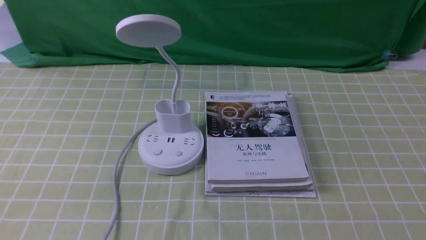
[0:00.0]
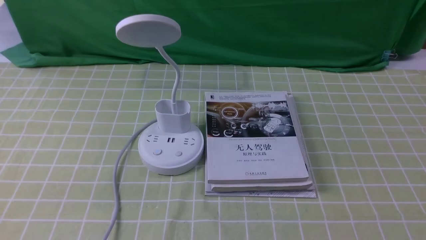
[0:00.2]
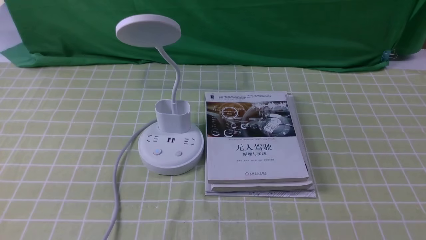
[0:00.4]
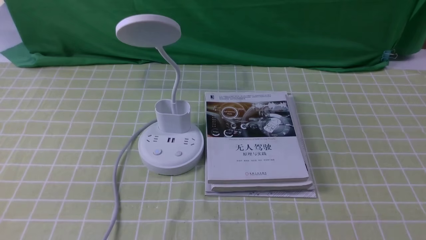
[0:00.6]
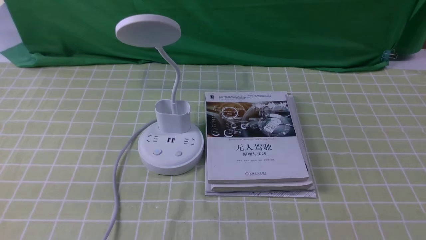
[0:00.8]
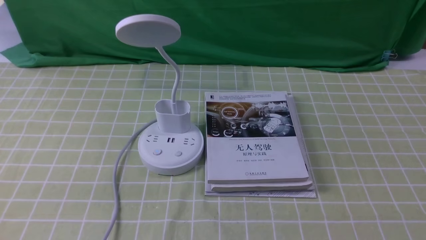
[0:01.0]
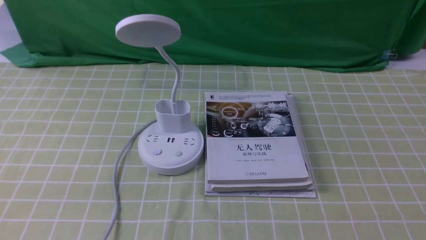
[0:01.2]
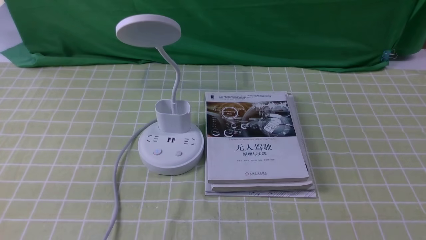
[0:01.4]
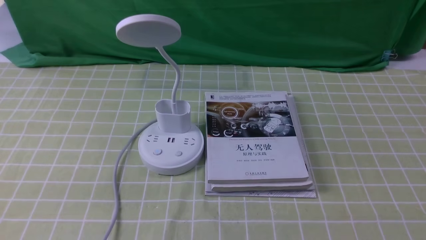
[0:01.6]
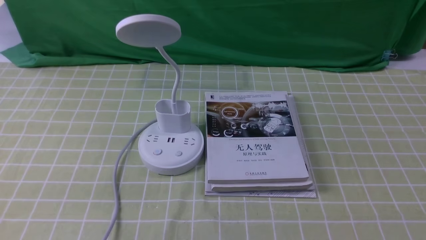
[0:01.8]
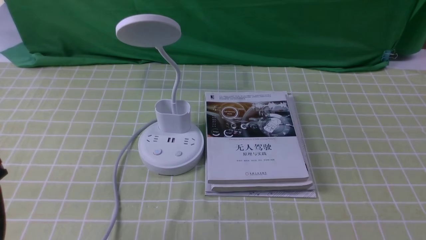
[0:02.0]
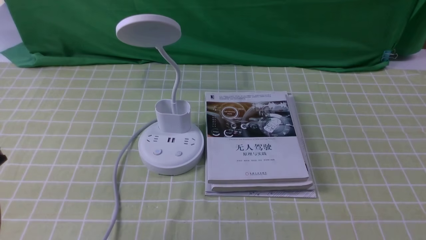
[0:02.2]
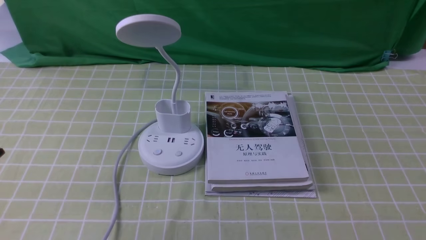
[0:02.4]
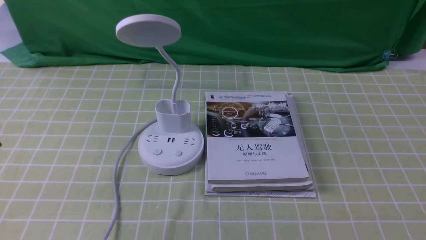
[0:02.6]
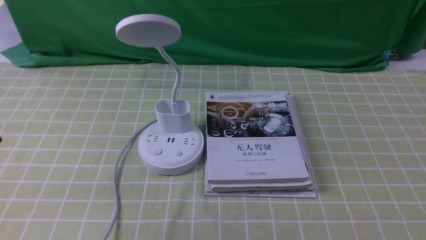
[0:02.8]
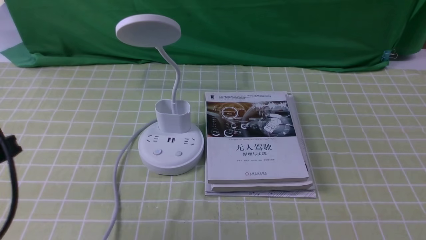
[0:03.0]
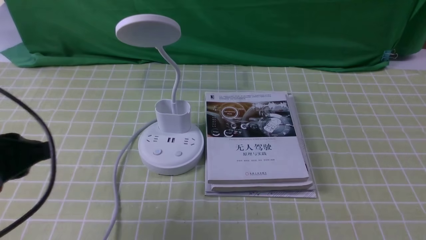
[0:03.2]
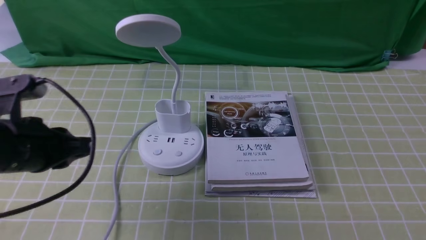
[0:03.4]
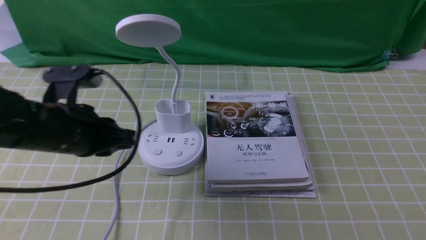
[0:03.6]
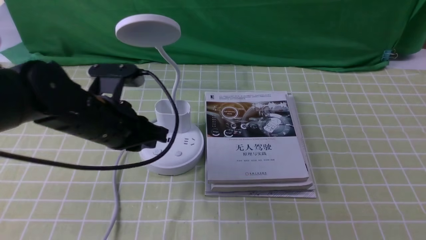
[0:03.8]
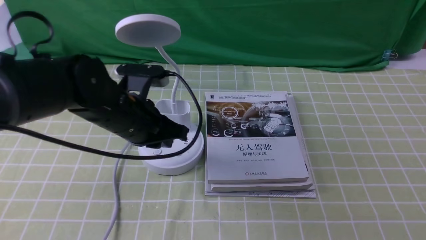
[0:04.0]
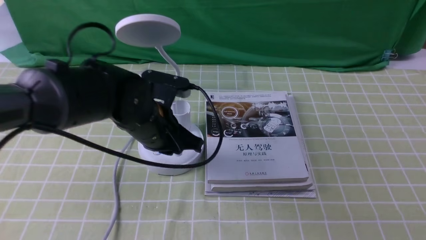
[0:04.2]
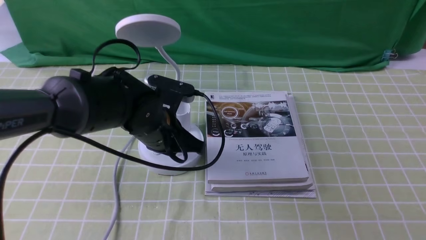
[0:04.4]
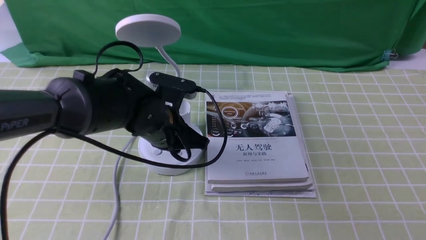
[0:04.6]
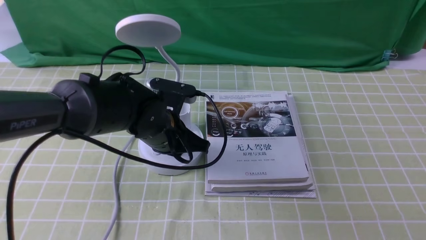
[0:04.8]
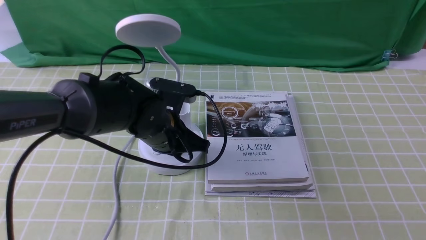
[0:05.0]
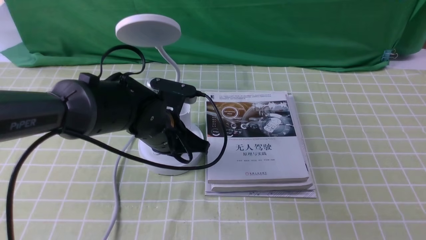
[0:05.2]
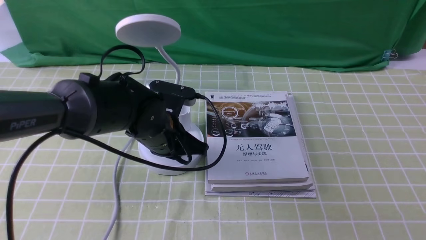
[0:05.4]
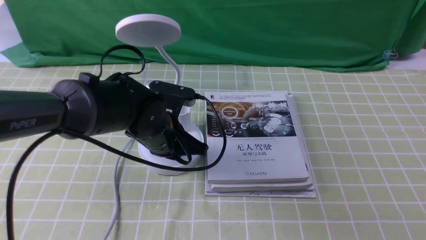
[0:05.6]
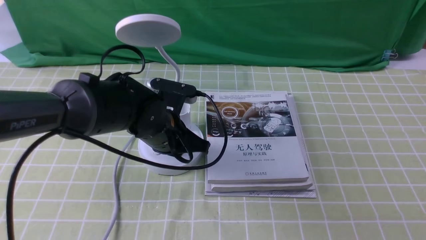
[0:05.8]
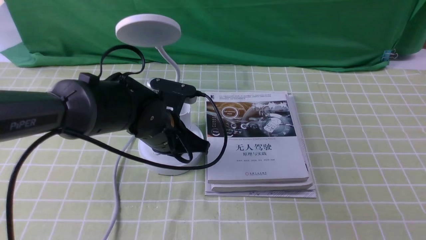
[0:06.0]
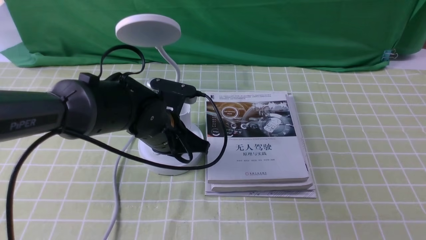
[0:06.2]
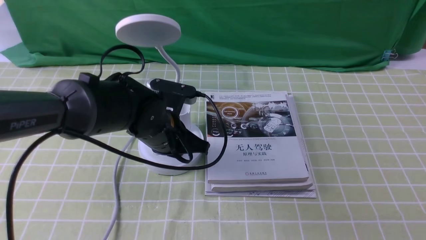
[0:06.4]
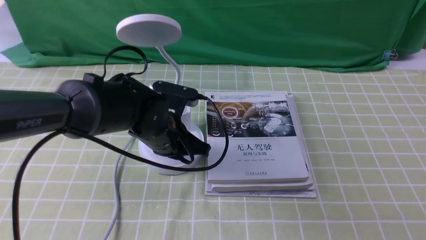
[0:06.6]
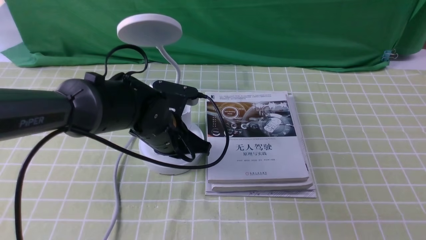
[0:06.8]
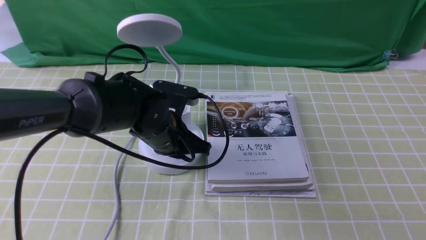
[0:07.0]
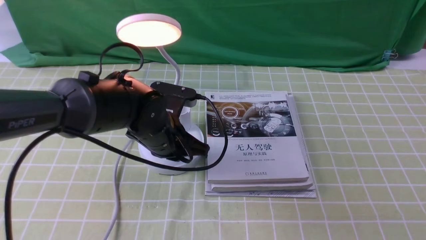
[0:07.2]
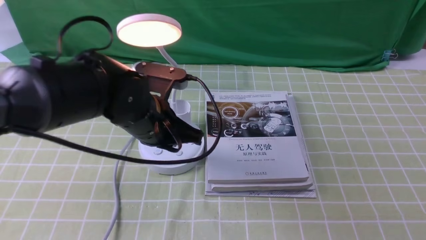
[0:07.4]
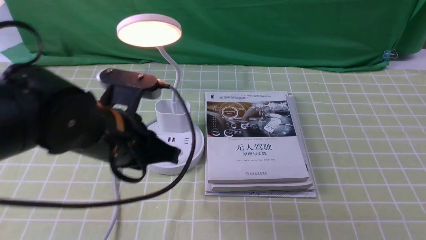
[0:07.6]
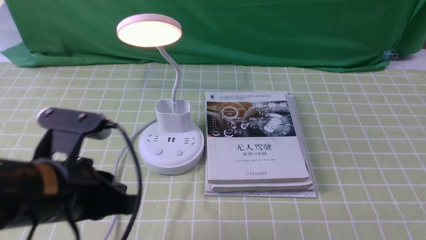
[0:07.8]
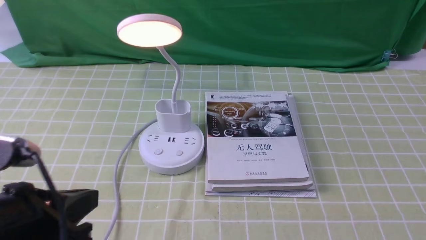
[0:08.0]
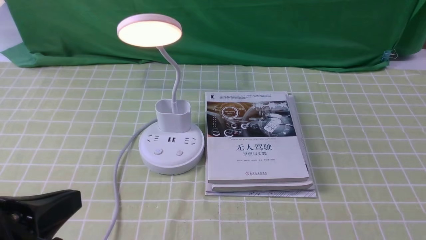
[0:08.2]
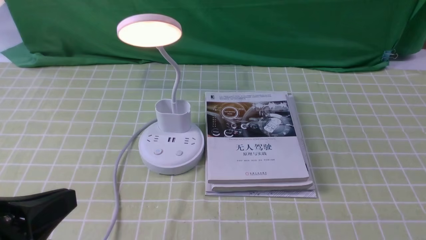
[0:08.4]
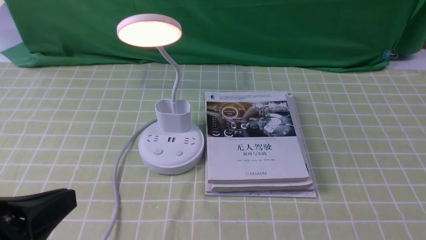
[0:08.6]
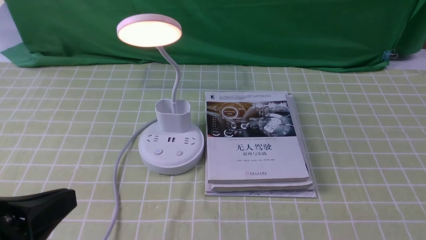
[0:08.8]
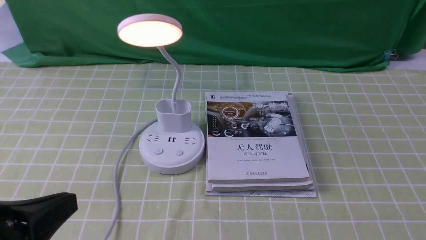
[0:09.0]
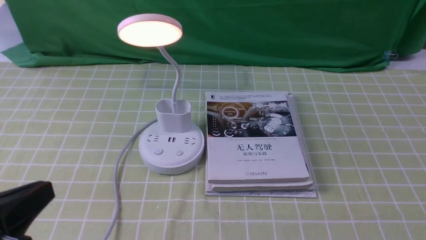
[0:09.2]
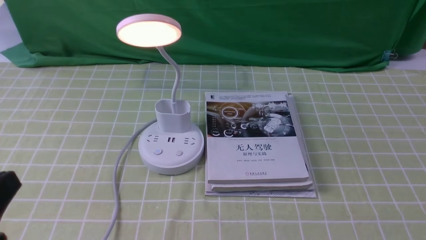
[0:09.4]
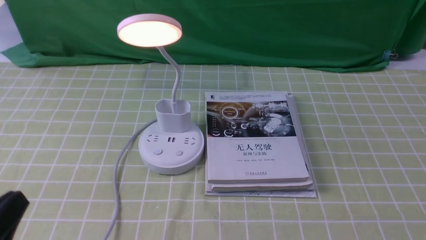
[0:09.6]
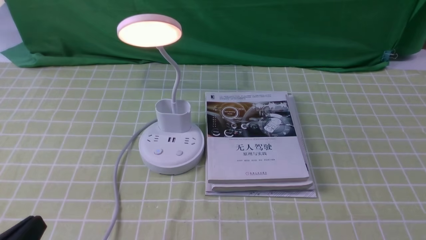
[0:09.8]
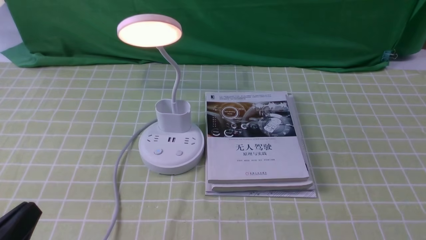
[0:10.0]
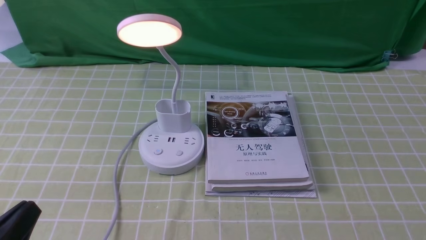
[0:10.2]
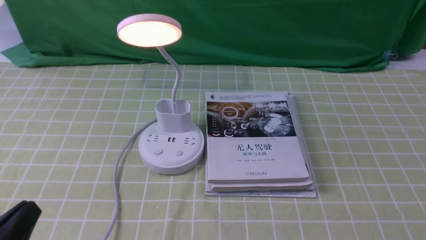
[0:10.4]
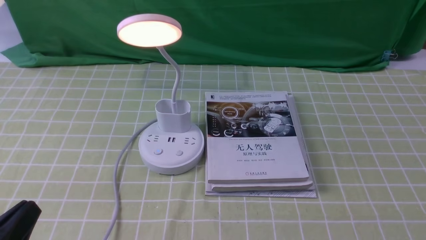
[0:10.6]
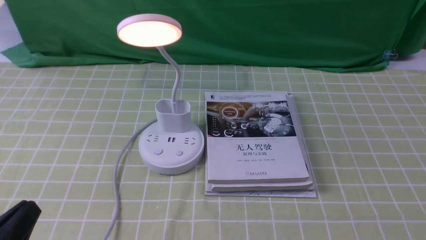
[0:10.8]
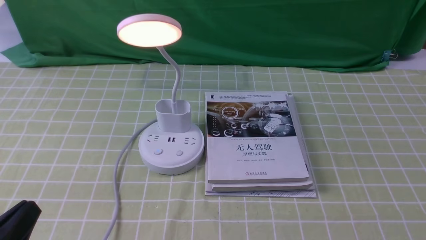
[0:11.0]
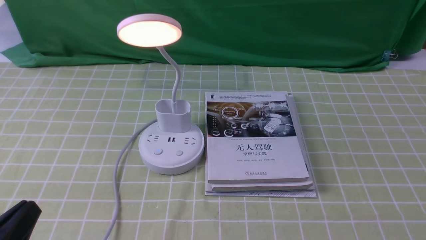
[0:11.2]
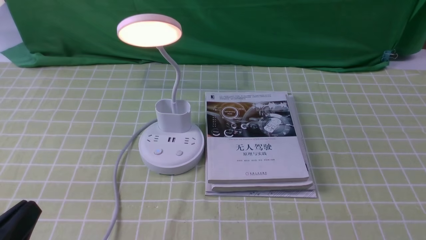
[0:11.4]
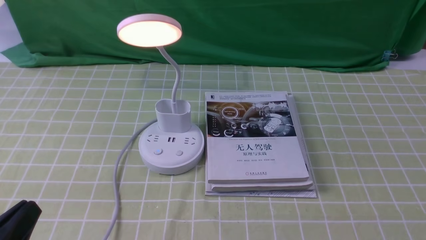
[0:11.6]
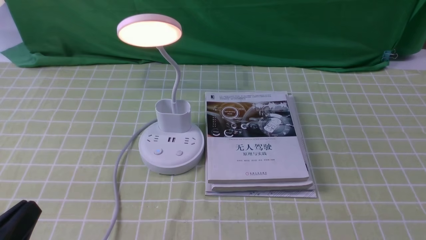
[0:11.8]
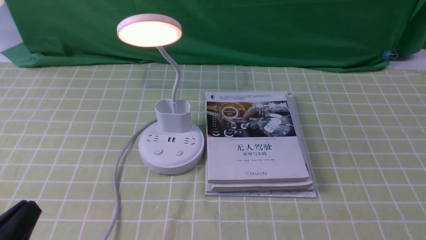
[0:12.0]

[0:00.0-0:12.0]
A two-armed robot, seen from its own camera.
Step, 0:00.0 to 0:07.6: use the left arm to press the button switch on the lamp holder.
0:01.6 to 0:03.0: The left gripper heads forward, covering some 10 cm.
0:03.0 to 0:04.4: The left gripper travels to the right, forward and downward by approximately 25 cm.
0:04.4 to 0:06.0: The grippers stay close to where they were, moving slightly.
0:06.0 to 0:07.6: The left gripper goes some 10 cm backward and upward.
0:07.6 to 0:09.0: The left gripper heads backward and to the left, covering approximately 20 cm.
0:09.0 to 0:10.4: The left gripper is displaced downward by approximately 10 cm.
0:10.4 to 0:12.0: Both grippers stay about where they are.

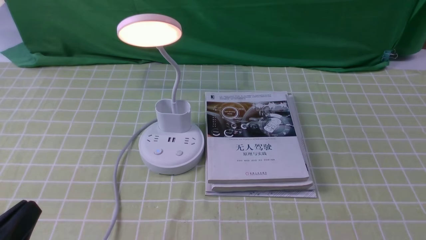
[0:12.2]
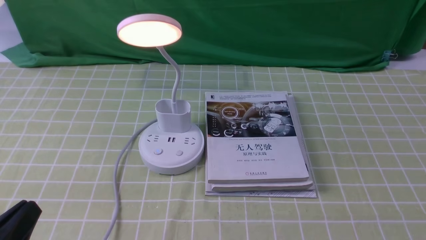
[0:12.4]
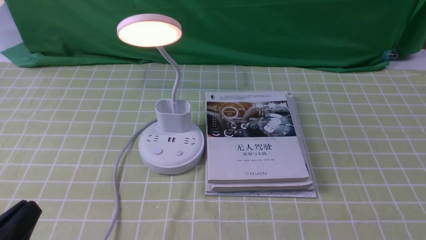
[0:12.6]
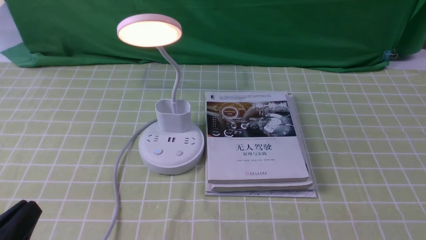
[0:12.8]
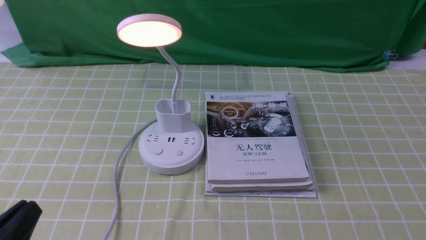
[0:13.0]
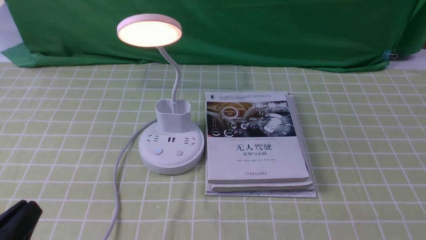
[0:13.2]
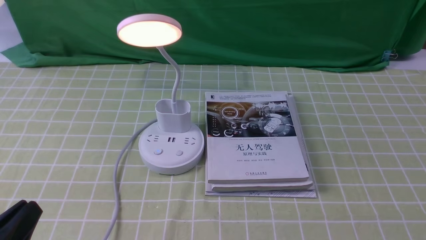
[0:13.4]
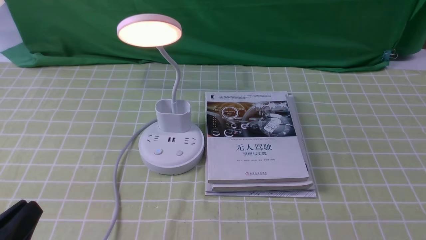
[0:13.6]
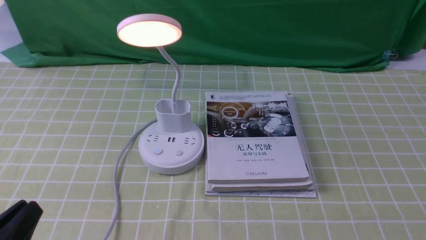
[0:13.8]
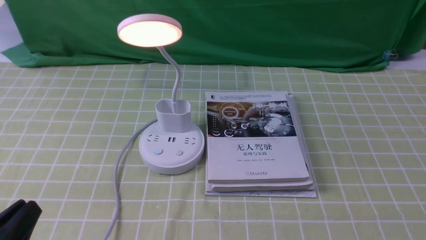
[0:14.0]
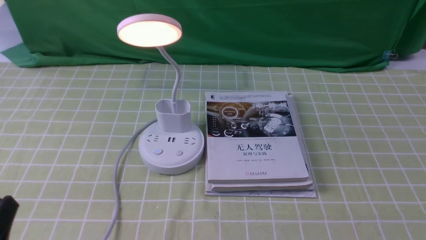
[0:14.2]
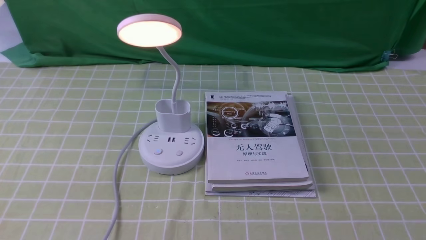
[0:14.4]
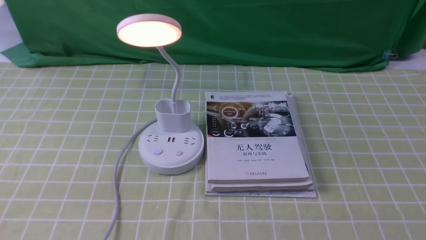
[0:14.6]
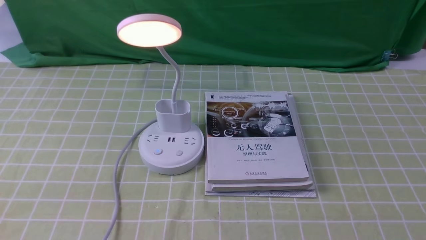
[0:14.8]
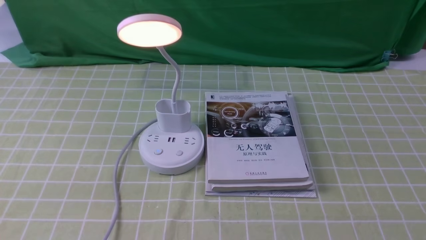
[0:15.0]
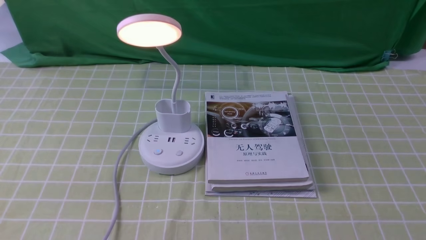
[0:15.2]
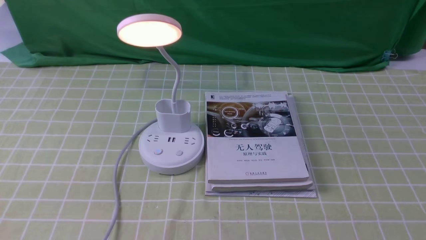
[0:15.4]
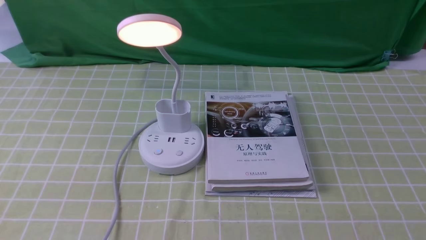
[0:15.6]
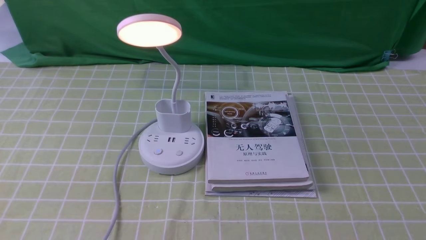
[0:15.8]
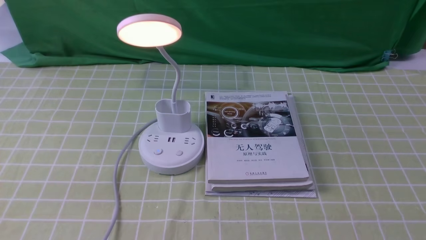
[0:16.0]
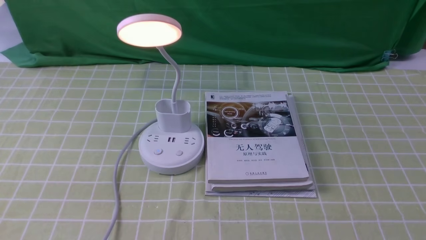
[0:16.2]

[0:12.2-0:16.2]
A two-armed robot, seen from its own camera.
0:12.2 to 0:13.6: The two grippers keep their place.
